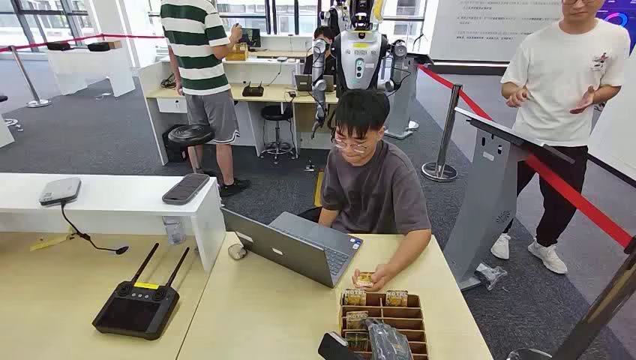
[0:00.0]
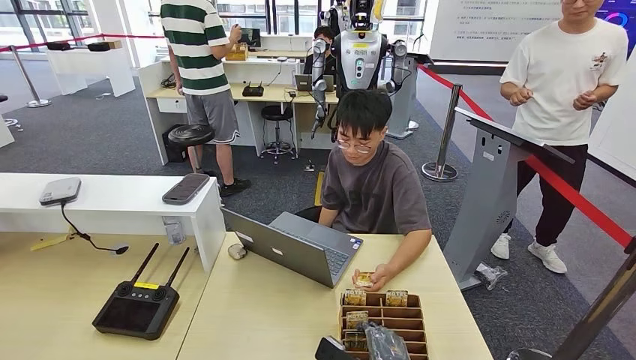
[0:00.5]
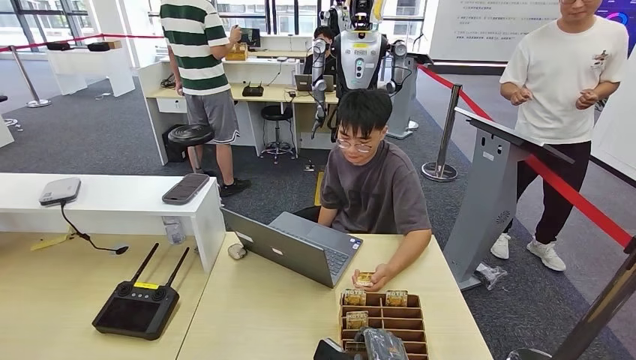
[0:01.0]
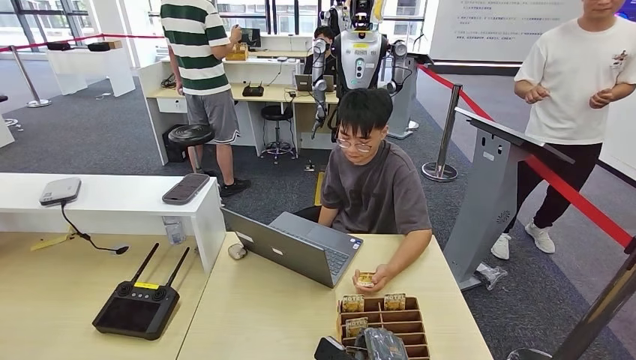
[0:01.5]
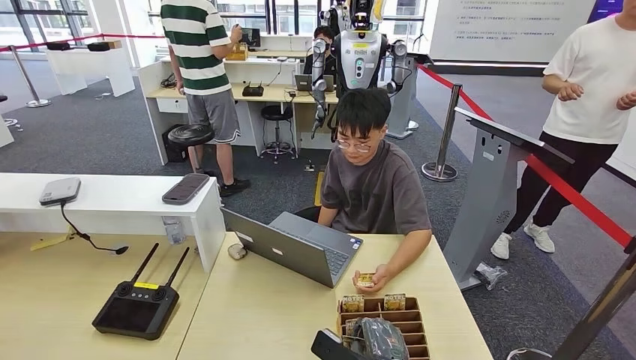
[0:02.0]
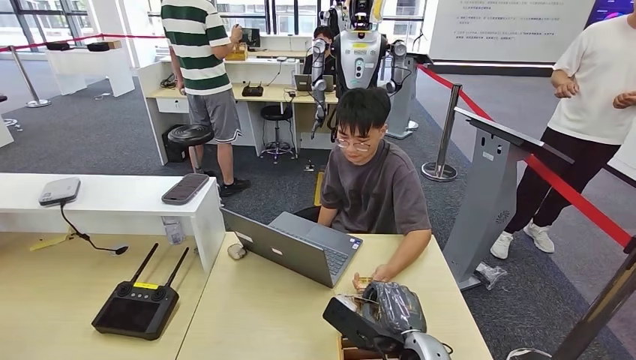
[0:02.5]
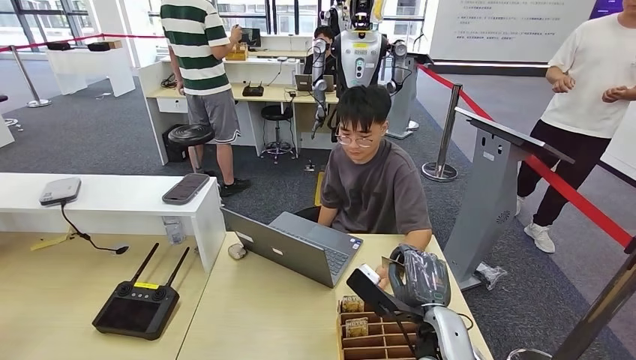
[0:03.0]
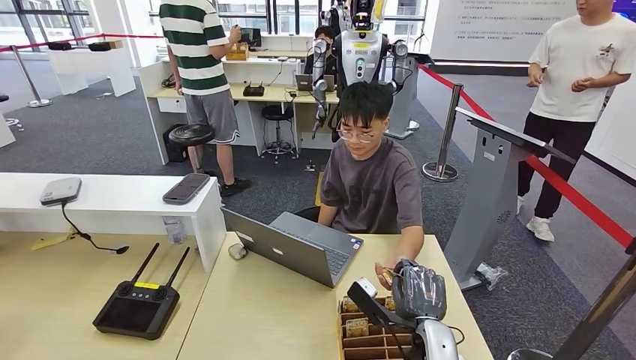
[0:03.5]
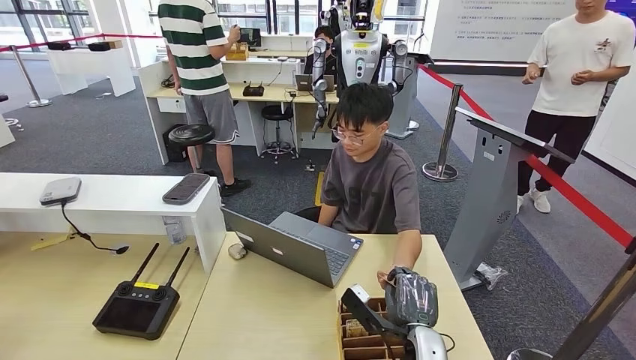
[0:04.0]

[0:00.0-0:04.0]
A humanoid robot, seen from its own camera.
Task of the whole recording: Pick up the card and hand it over to the target person.
Step, 0:00.0 to 0:02.0: Pick up the key card from the card box.
Step, 0:03.5 to 0:04.0: Hand the key card to the target.
0:02.0 to 0:04.0: The right hand shifts about 10 cm downward and forward.
